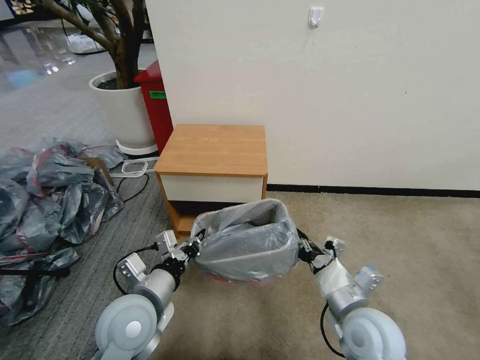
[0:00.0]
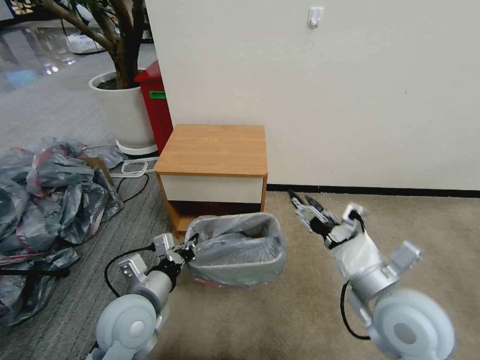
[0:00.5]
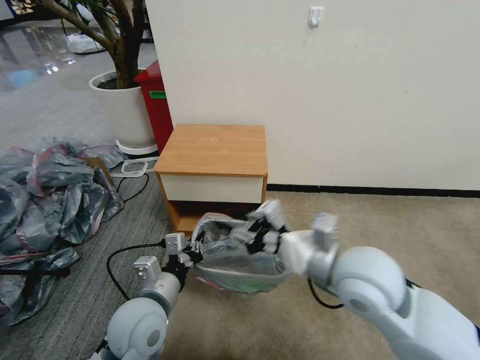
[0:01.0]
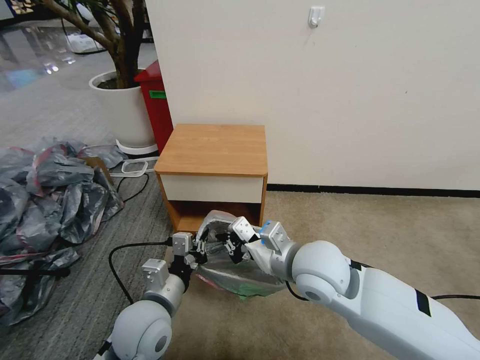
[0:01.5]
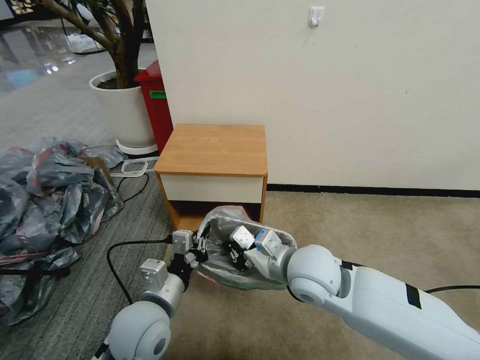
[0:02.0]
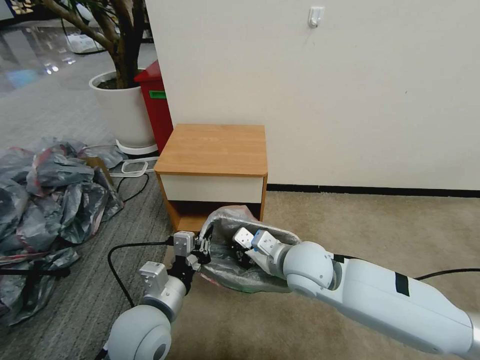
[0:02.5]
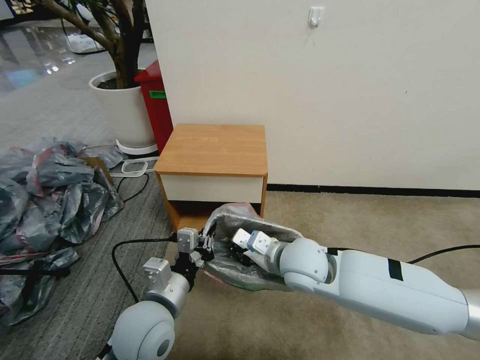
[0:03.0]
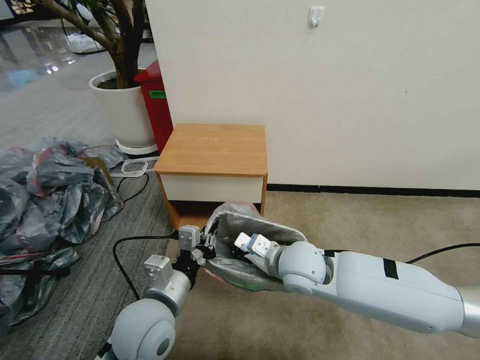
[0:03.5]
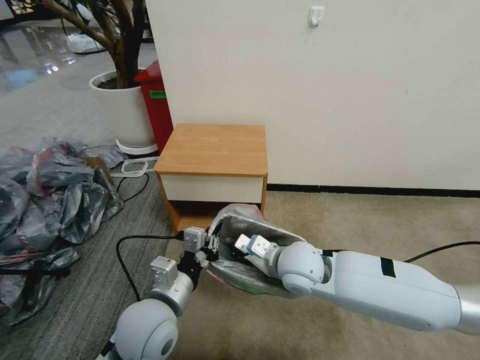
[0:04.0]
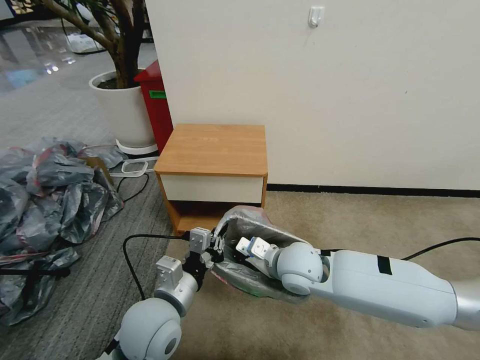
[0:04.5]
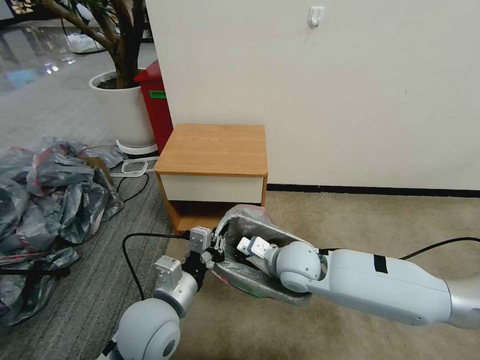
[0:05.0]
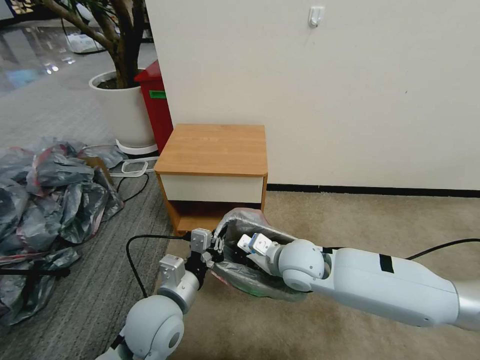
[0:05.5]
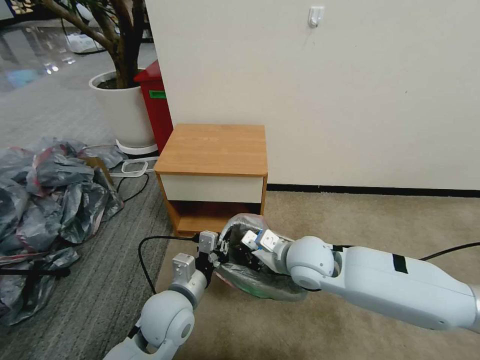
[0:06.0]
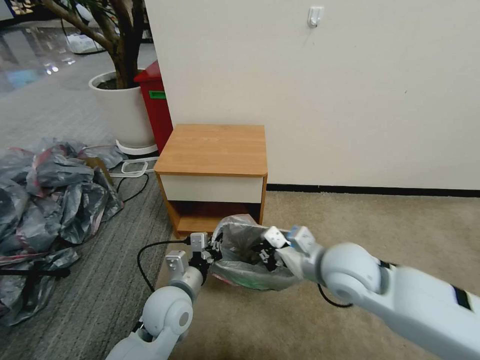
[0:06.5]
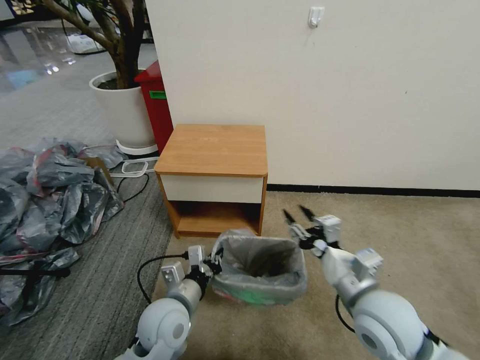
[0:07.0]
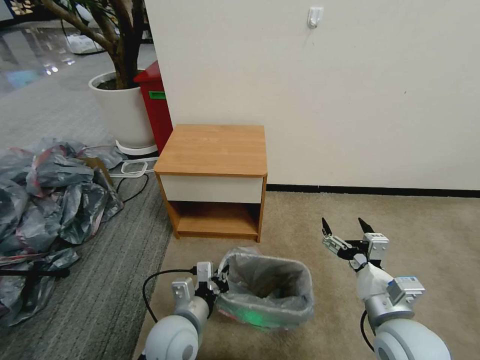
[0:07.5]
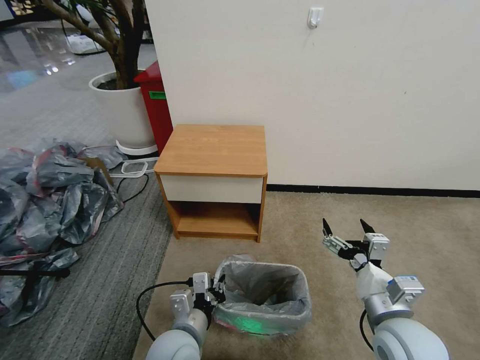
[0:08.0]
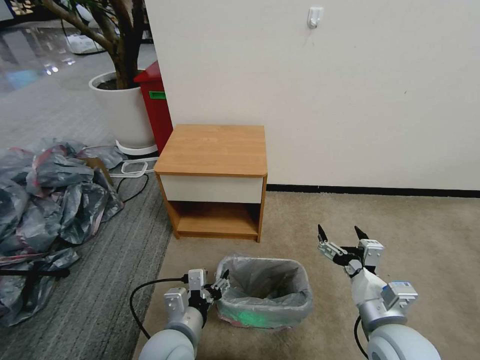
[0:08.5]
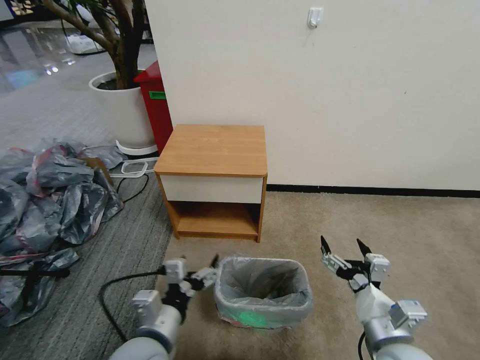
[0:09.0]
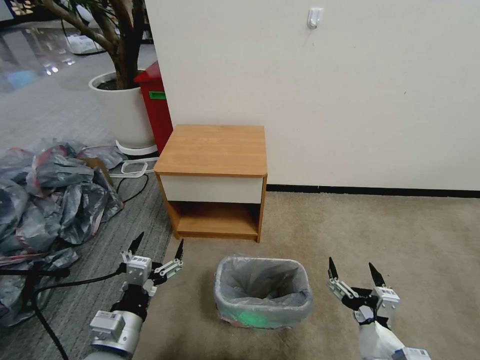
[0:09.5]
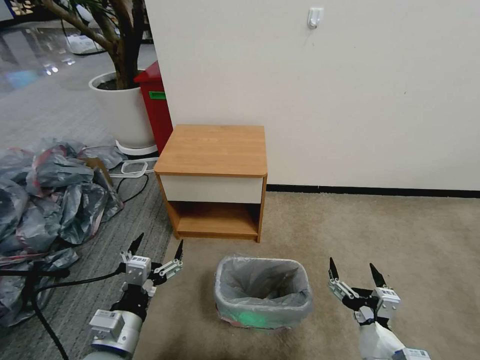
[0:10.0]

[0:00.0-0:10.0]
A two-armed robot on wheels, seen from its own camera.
Task of the whole recording: Pick up the garbage bag from the table and place it over the trash can.
0:00.0 to 0:02.0: The right gripper is displaced to the left, forward and upward by approximately 15 cm, and opens and closes again.
0:02.0 to 0:04.0: The right gripper changes place by about 5 cm.
0:04.0 to 0:06.0: The left gripper moves roughly 5 cm.
0:06.0 to 0:08.0: The right gripper is displaced backward and to the right by about 20 cm, and opens. Meanwhile the left gripper is displaced backward by roughly 5 cm.
0:08.0 to 0:10.0: The left gripper goes approximately 10 cm to the left and upward, and opens, while the right gripper heads backward and downward, covering approximately 10 cm.
